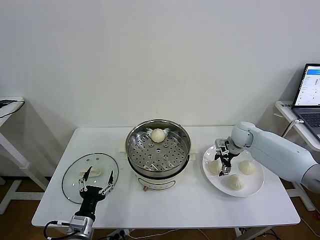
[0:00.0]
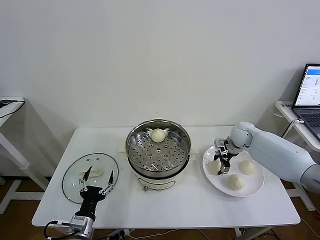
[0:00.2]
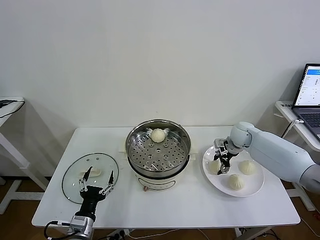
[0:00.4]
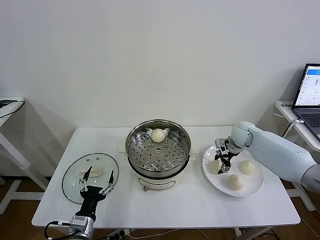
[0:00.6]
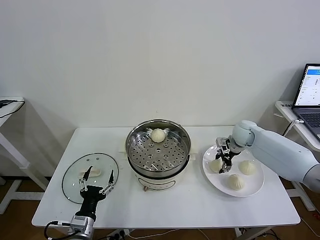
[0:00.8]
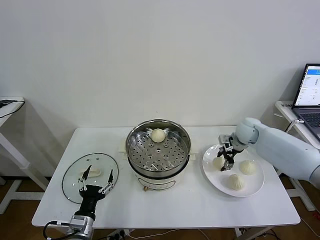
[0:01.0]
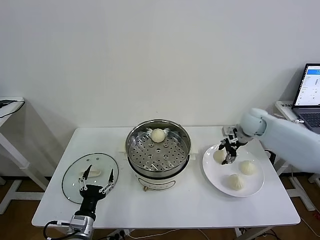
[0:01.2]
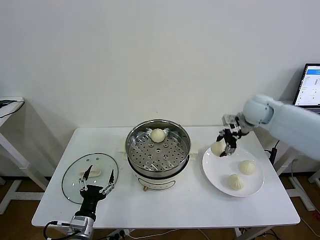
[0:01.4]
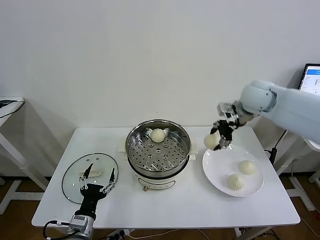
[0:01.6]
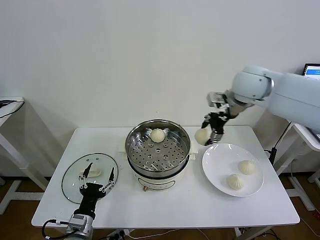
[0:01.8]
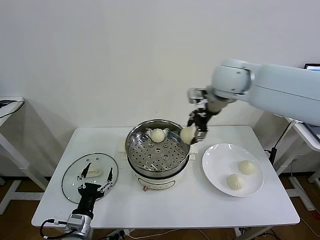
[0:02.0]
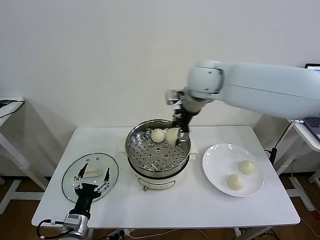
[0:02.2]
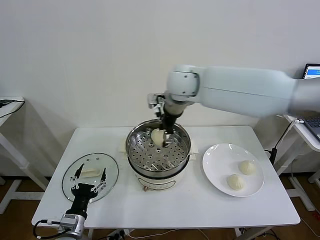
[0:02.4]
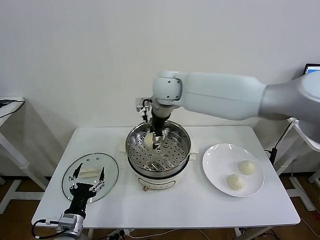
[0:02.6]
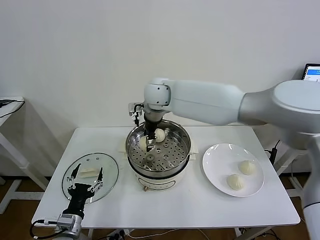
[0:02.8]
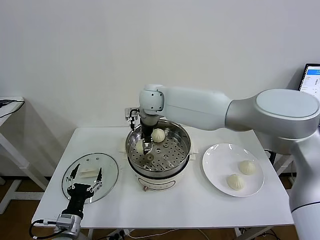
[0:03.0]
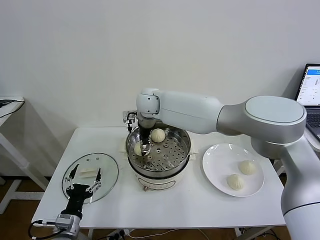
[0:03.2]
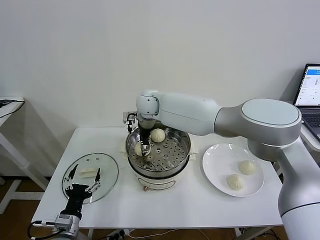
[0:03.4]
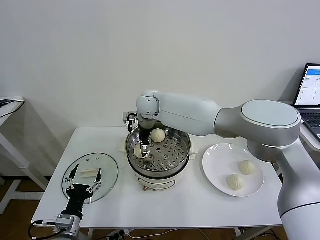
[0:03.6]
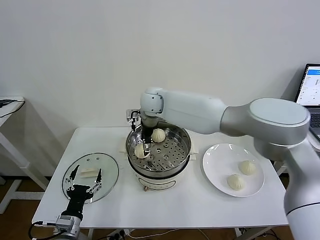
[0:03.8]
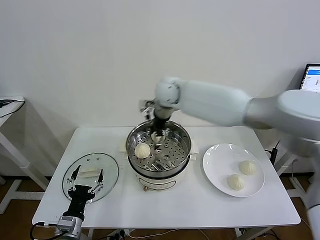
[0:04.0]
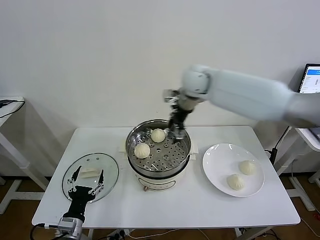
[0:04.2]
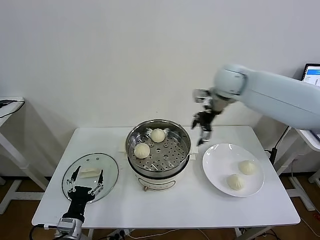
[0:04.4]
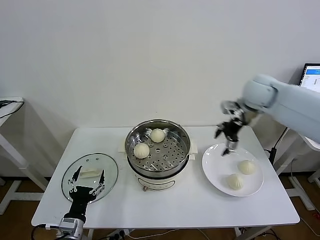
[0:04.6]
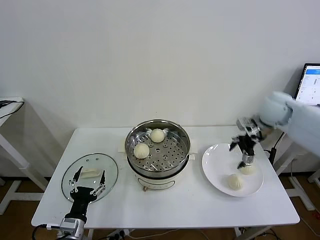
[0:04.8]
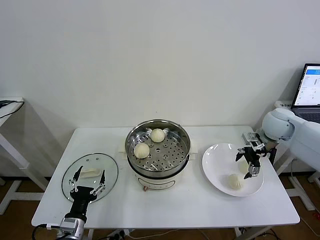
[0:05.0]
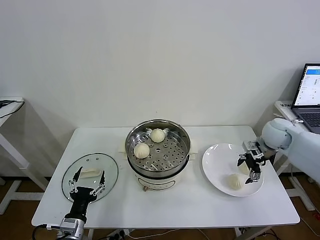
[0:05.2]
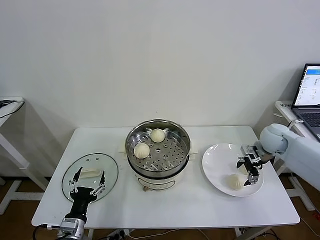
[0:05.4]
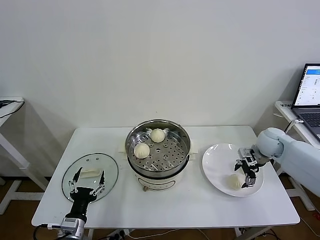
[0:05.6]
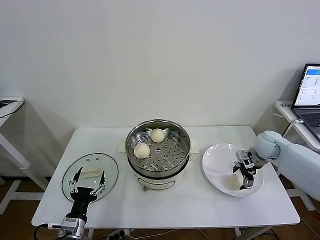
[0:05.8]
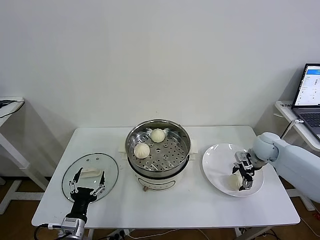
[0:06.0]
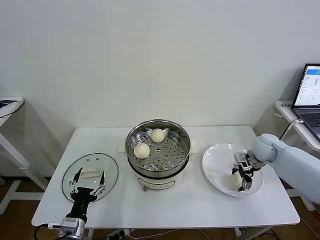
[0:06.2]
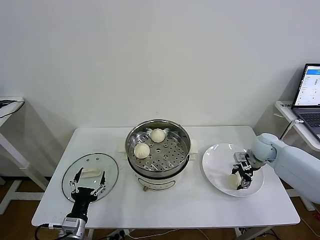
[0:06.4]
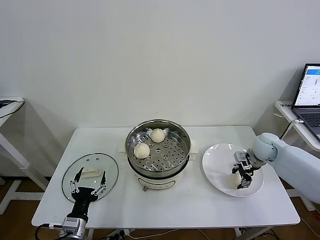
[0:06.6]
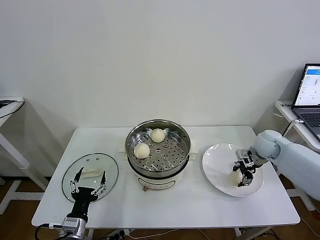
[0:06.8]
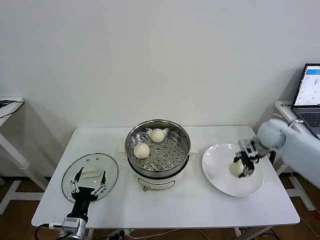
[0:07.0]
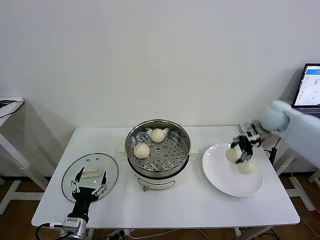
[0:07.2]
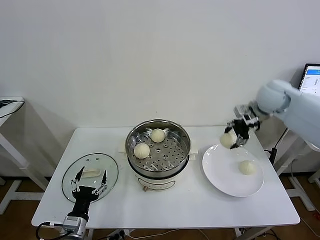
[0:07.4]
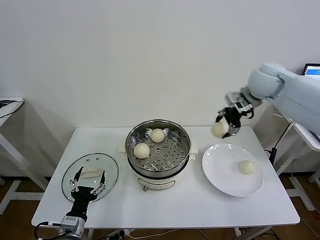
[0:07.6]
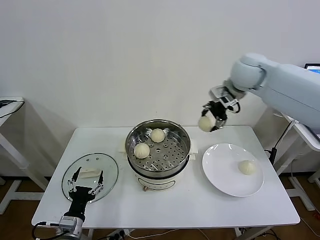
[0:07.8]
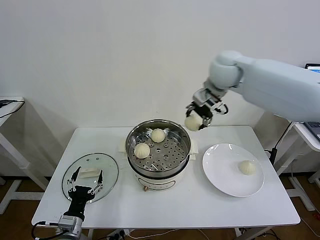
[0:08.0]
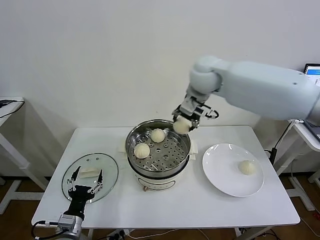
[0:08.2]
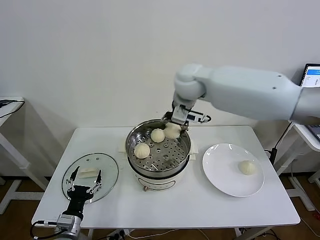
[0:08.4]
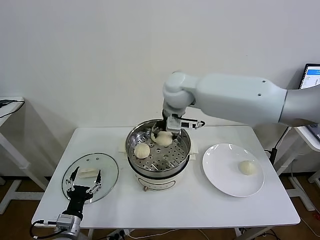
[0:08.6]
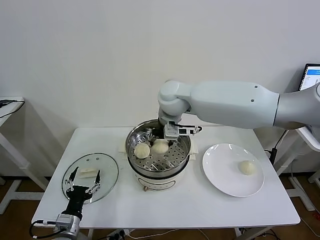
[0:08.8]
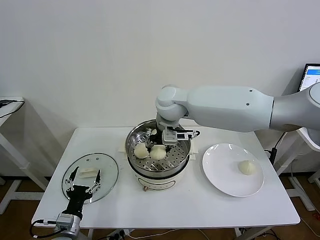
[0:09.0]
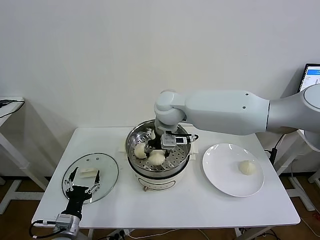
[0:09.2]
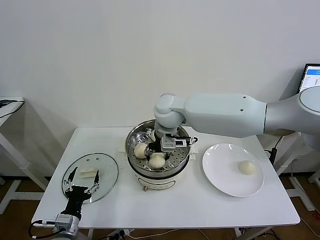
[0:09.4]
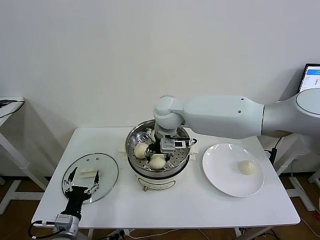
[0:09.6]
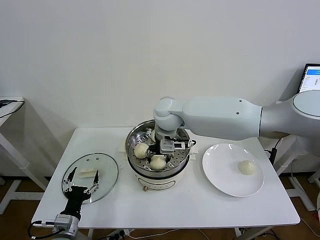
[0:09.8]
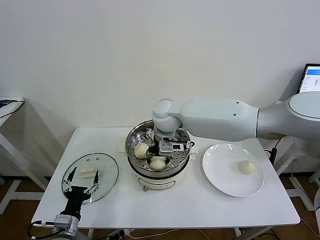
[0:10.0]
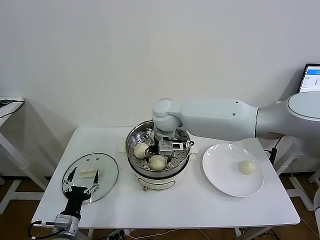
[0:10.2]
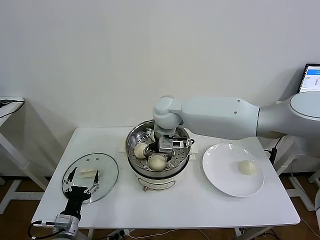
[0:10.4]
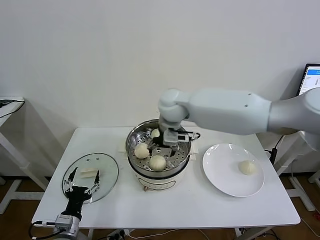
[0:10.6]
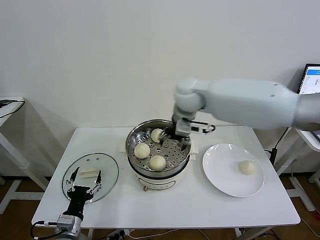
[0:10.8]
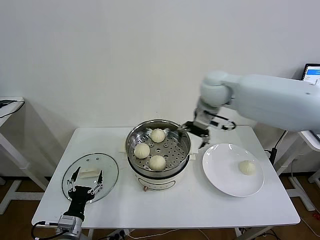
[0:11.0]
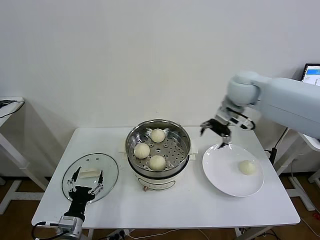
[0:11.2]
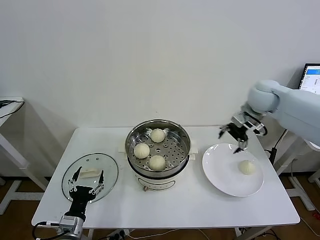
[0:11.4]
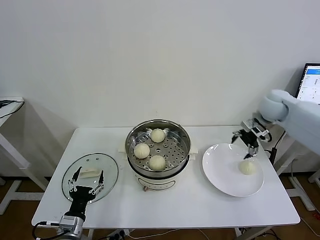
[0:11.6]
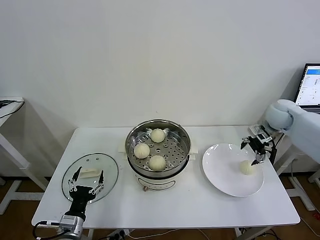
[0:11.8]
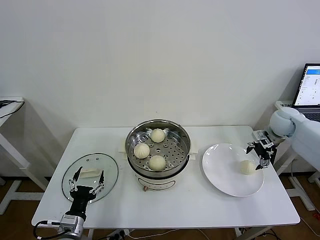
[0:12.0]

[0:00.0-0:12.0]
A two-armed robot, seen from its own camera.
Task of the whole recording: take steamed baozi put them in steamer then cover it.
Step, 0:00.8 to 0:03.6: Place the baozi on the steamer with right gripper.
Step, 0:03.8 to 0:06.4: Grasp the baozi in the plate with right gripper.
Step, 0:06.6 to 0:10.2: Place the baozi on the steamer with right gripper.
0:00.0 to 0:01.6: The right gripper travels upward by about 25 cm, and closes up.
0:01.6 to 0:03.0: The right gripper goes approximately 30 cm to the left.
0:03.0 to 0:04.4: The right gripper travels to the right by some 30 cm, and opens.
0:04.4 to 0:06.0: The right gripper is displaced downward and to the right by roughly 25 cm.
0:06.0 to 0:07.6: The right gripper is displaced upward and to the left by some 30 cm, and closes.
0:07.6 to 0:09.0: The right gripper goes roughly 25 cm to the left.
0:09.0 to 0:10.4: The right gripper opens up.
0:10.4 to 0:12.0: The right gripper moves to the right, about 40 cm.

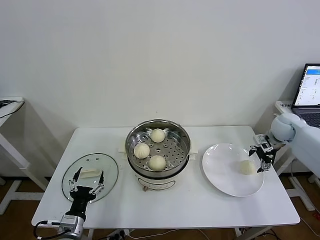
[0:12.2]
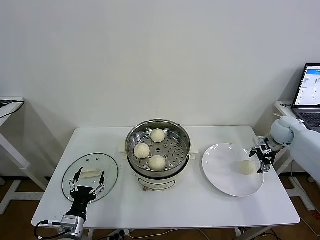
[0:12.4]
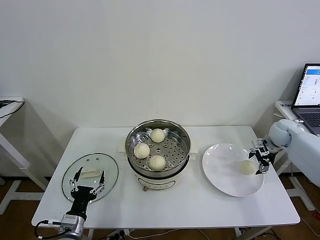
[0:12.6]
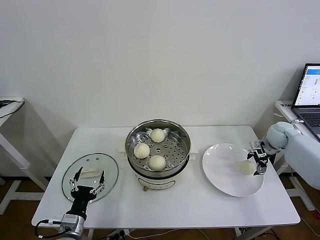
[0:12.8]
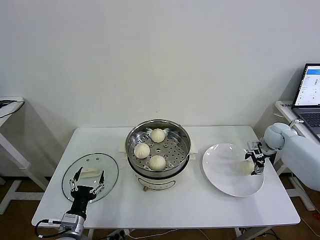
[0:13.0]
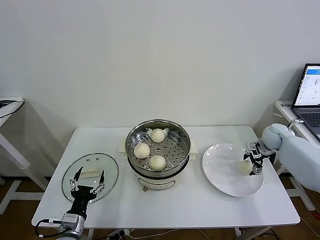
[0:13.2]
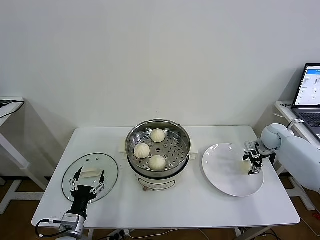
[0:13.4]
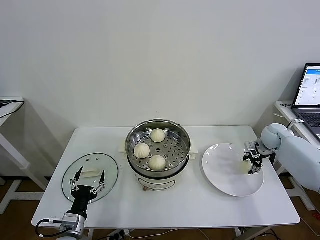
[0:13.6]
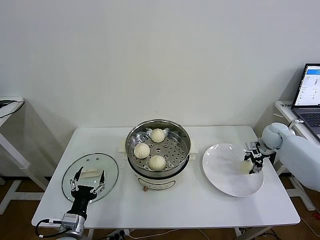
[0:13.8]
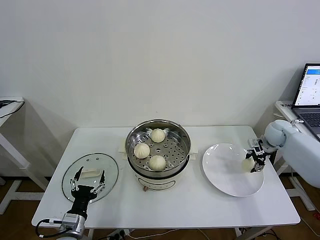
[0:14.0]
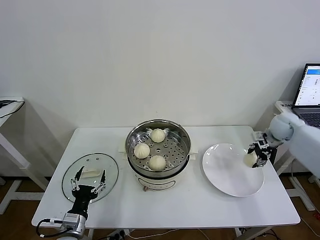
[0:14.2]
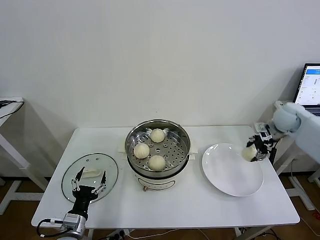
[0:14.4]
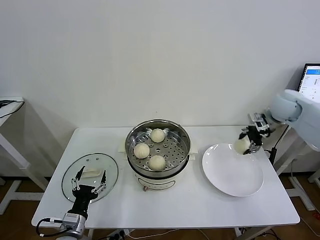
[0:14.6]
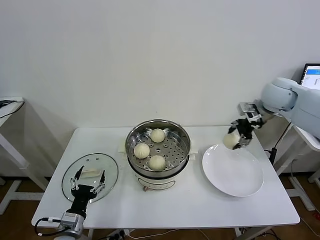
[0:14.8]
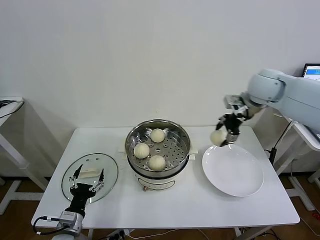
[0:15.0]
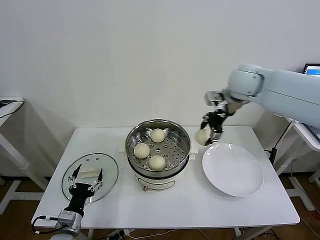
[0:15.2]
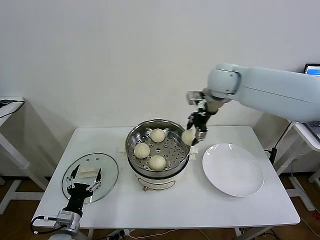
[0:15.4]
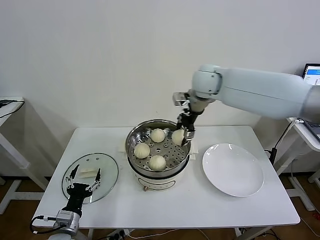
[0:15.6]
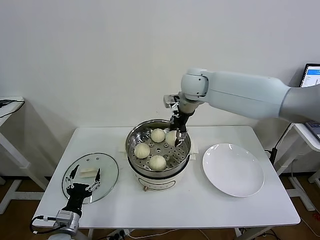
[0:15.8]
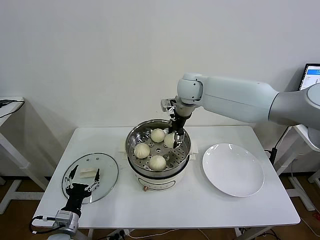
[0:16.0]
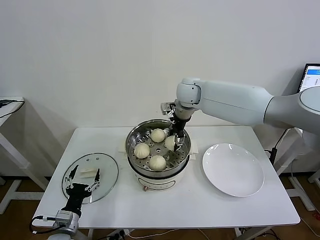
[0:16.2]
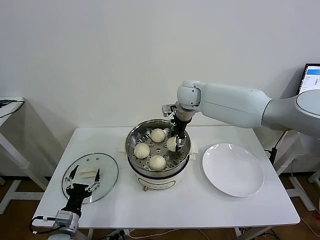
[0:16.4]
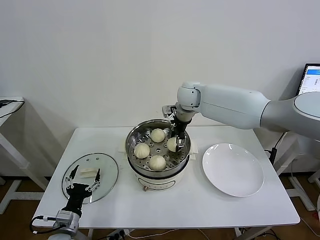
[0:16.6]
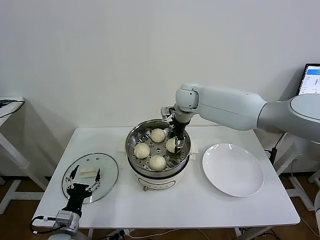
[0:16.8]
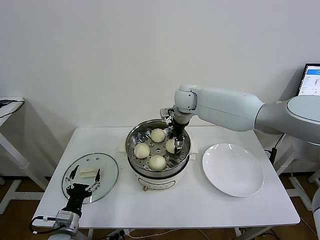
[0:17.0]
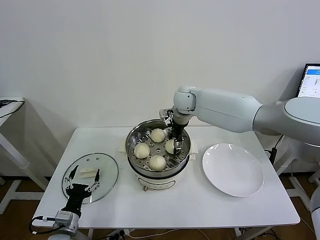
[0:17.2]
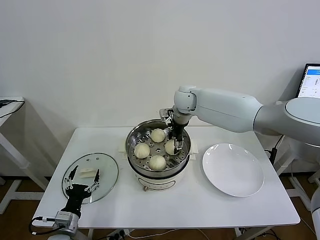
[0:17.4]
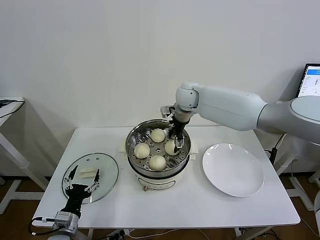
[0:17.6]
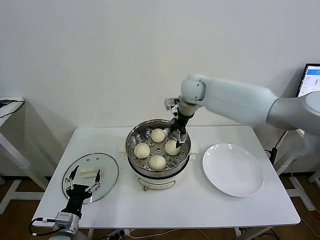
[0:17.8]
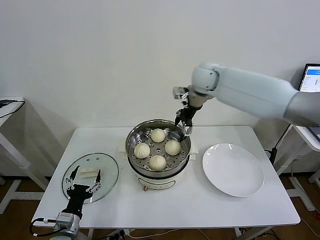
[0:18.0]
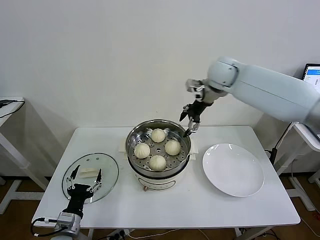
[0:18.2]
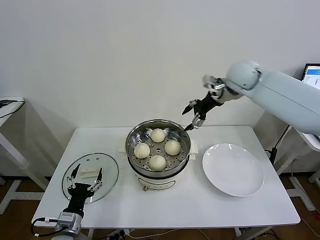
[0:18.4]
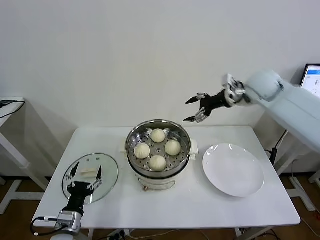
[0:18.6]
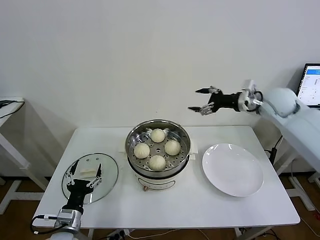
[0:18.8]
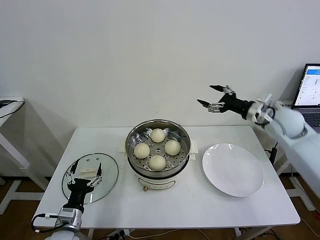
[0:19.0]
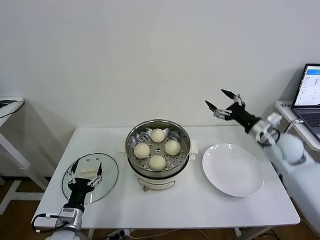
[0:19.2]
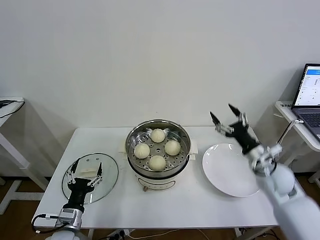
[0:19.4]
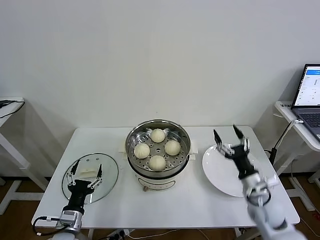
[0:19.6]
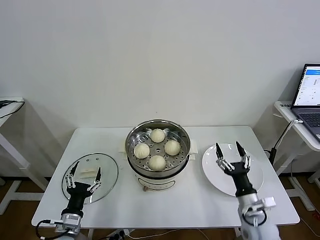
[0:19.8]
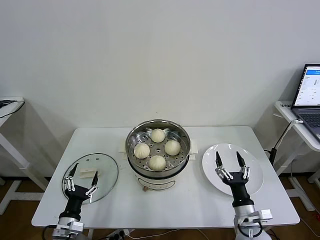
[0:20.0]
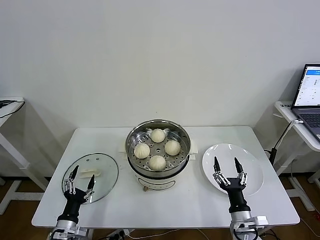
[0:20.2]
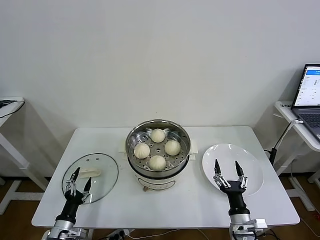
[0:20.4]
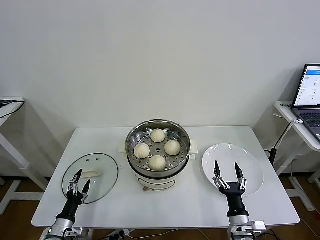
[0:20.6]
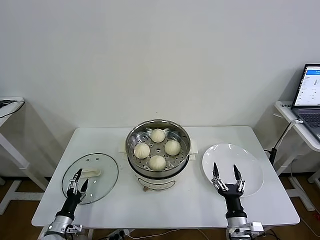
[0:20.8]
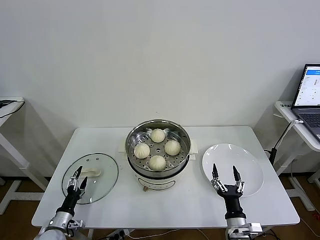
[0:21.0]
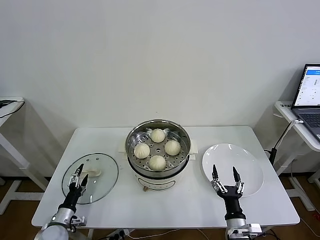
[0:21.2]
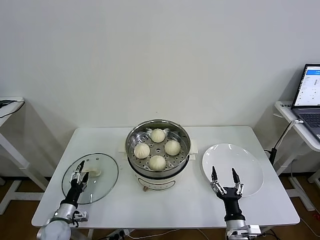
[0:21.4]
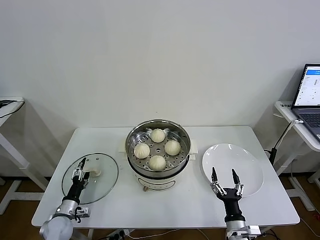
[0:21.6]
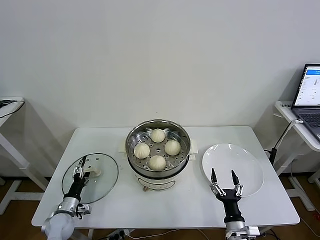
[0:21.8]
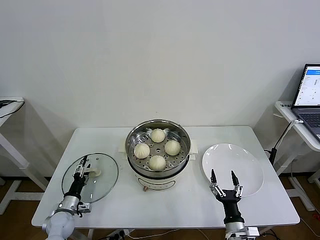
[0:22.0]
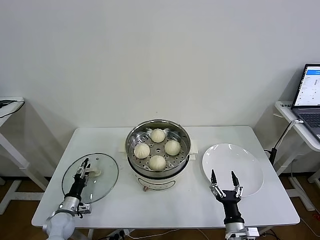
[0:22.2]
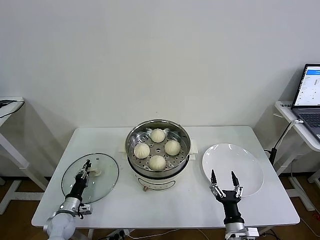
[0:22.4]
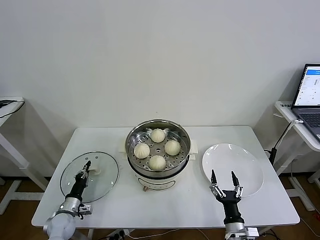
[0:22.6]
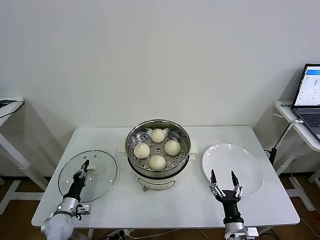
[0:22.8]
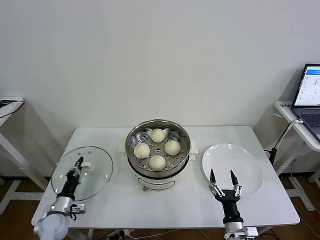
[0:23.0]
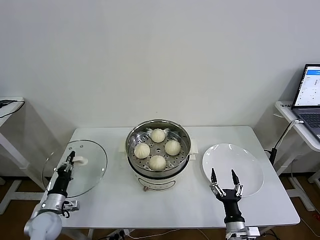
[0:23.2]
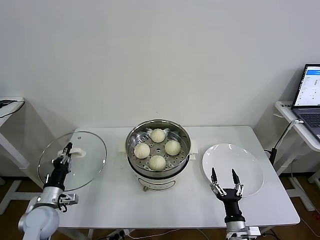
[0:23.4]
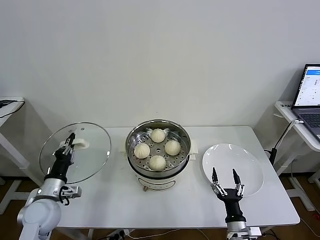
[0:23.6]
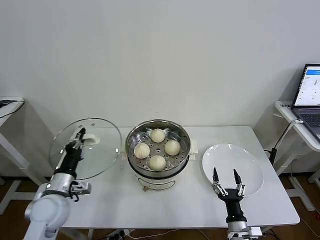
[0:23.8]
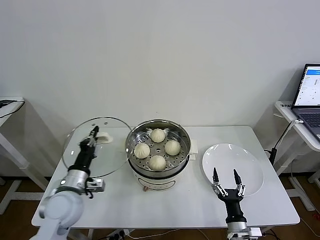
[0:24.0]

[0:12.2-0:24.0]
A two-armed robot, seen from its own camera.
Task of the whole recording: take steamed baozi put them in steamer then cover it.
Step, 0:13.6 to 0:17.6: Place the baozi on the steamer with right gripper.
Step, 0:17.8 to 0:22.6: Grasp the pot lid with left gripper.
0:12.2 to 0:13.6: The right gripper shifts approximately 5 cm downward, and closes up.
0:13.6 to 0:15.2: The right gripper goes some 35 cm upward and to the left.
0:15.2 to 0:16.6: The right gripper travels to the left, downward and forward by approximately 15 cm.
0:16.6 to 0:18.2: The right gripper travels to the right and upward by some 15 cm, and opens its fingers.
0:18.2 to 0:19.6: The right gripper travels downward, backward and to the right by approximately 40 cm.
0:19.6 to 0:21.0: The left gripper goes roughly 15 cm downward and to the left. The right gripper heads backward, downward and to the left, covering some 15 cm.
0:21.0 to 0:22.6: The left gripper is displaced forward by about 5 cm, and closes up.
0:22.6 to 0:24.0: The left gripper goes about 25 cm upward and to the right.
